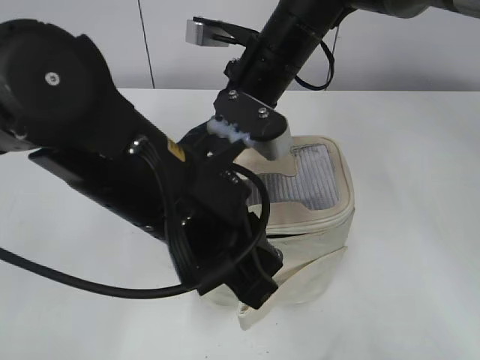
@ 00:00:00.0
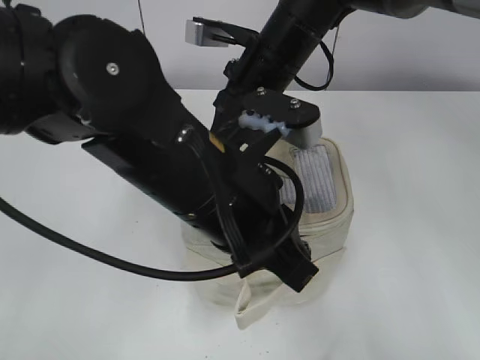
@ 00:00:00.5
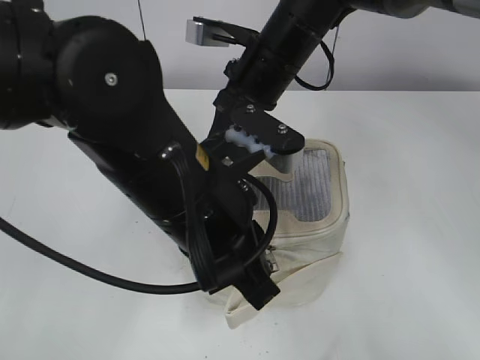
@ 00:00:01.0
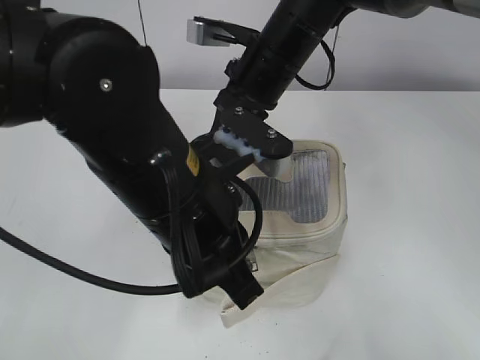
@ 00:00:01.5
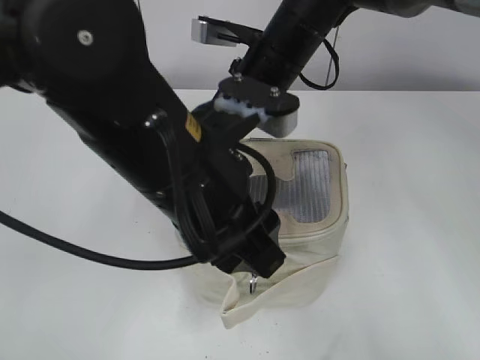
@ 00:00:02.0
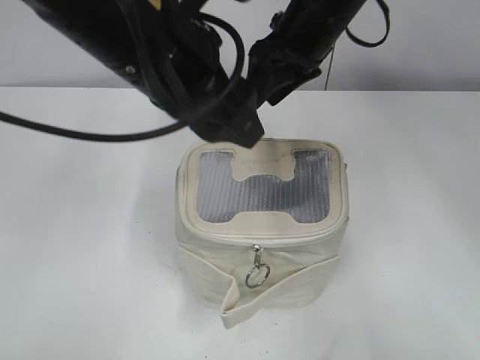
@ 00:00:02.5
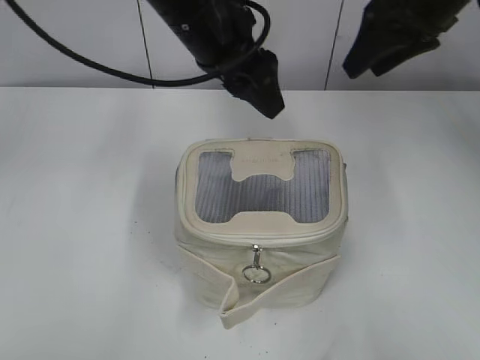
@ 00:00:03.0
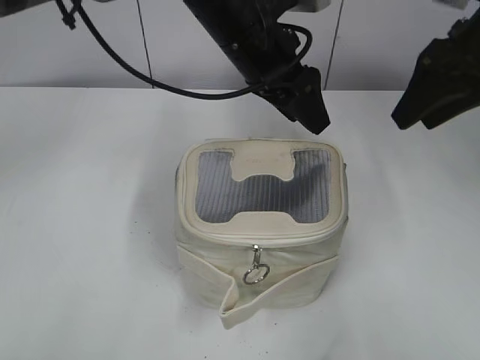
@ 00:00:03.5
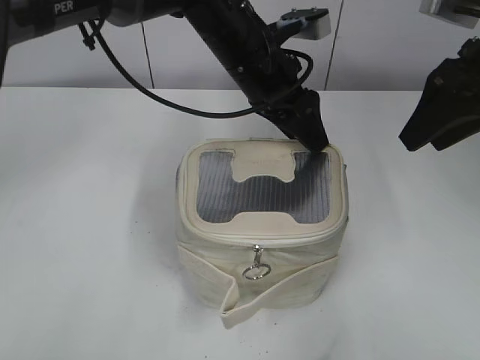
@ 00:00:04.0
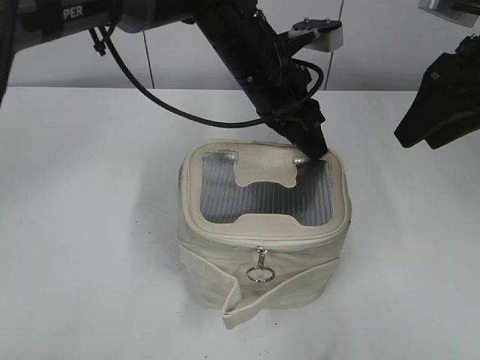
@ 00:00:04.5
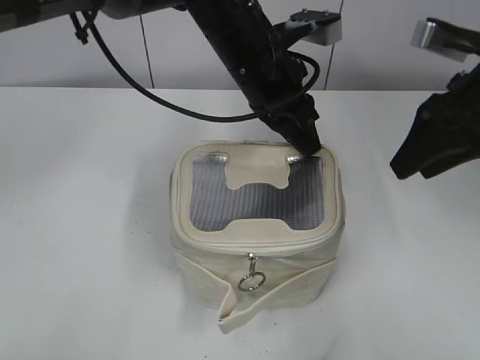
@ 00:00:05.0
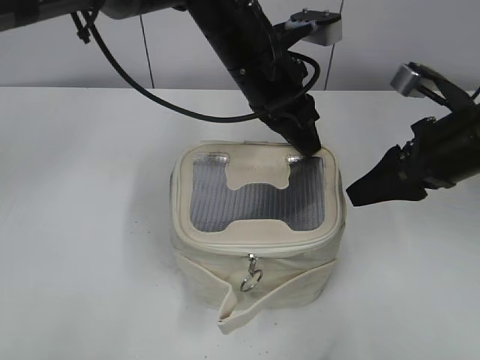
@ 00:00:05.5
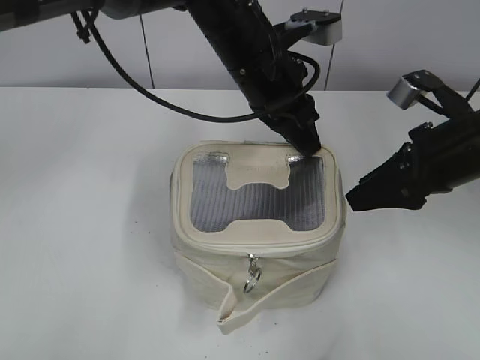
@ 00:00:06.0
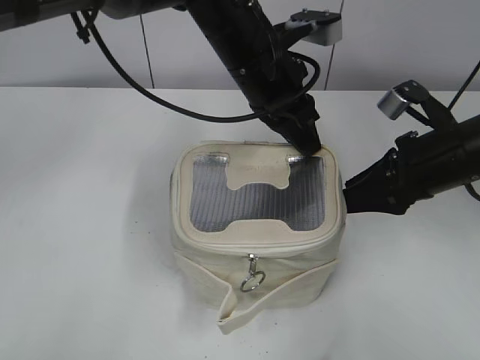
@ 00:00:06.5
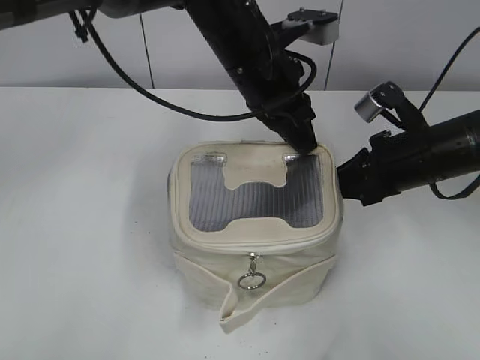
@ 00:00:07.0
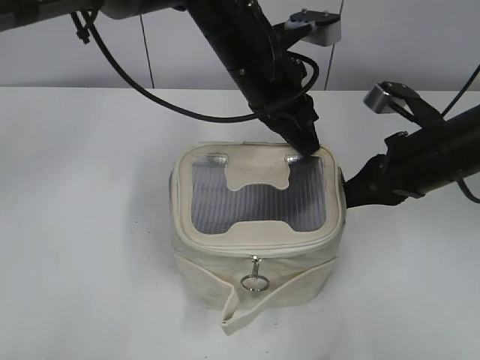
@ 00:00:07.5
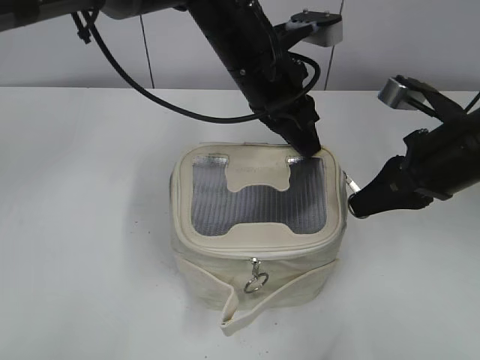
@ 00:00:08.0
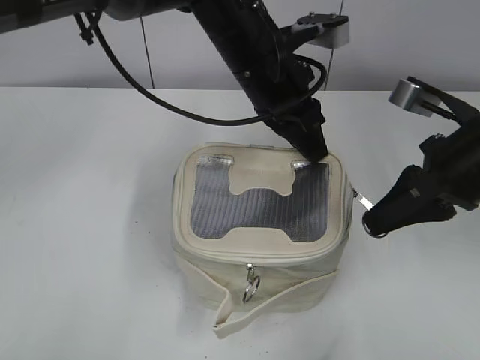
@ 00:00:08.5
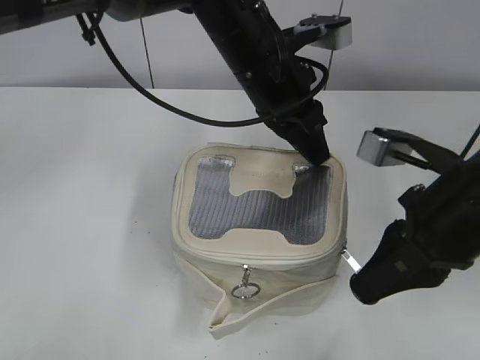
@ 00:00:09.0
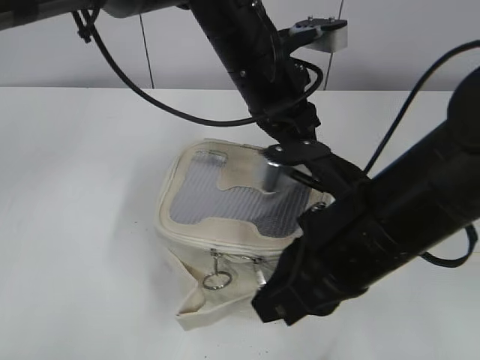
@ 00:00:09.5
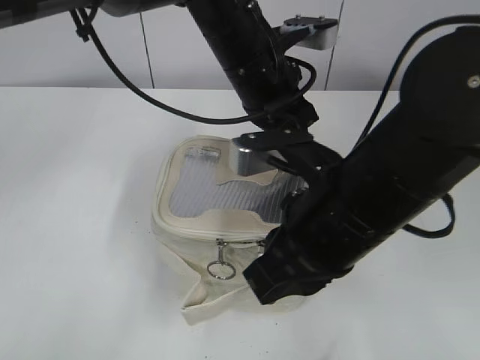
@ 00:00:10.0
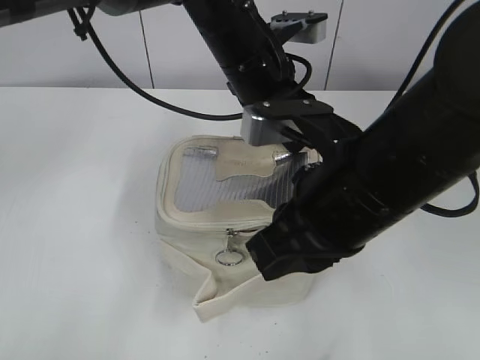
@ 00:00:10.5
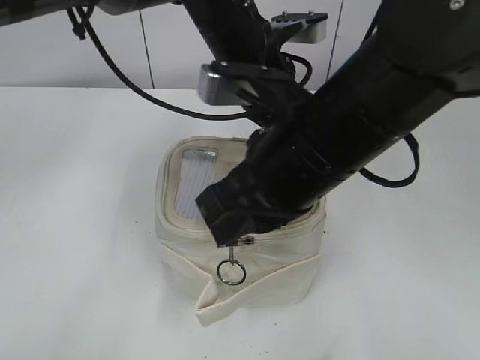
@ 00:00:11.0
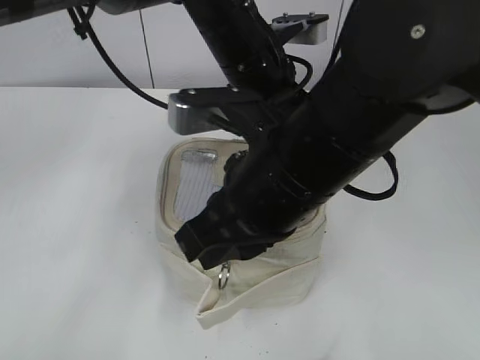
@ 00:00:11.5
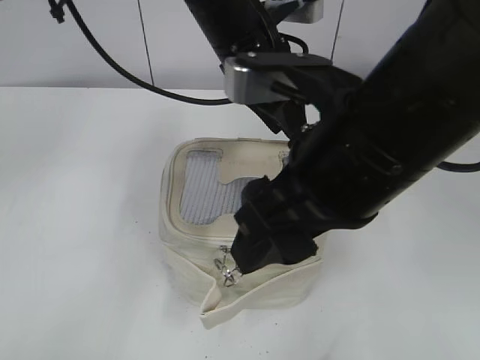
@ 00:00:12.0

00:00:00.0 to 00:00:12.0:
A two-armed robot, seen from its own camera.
Step, 00:00:02.5 to 00:00:11.5: Zip up the bag with your right hand.
00:00:00.0 to 00:00:02.0: The left gripper opens up. The right gripper opens up.
00:00:02.0 to 00:00:04.0: The left gripper is displaced forward by roughly 20 cm, while the right gripper heads to the right, covering about 20 cm.
00:00:04.0 to 00:00:06.0: The left gripper closes; the right gripper moves downward, approximately 10 cm.
00:00:06.0 to 00:00:08.0: The right gripper closes.
00:00:08.0 to 00:00:10.0: The right gripper heads to the left and backward, covering about 15 cm.
00:00:10.0 to 00:00:12.0: The right gripper goes about 5 cm upward, and opens its fingers. The left gripper opens its fingers.

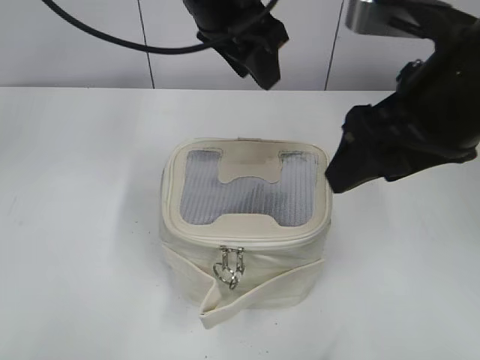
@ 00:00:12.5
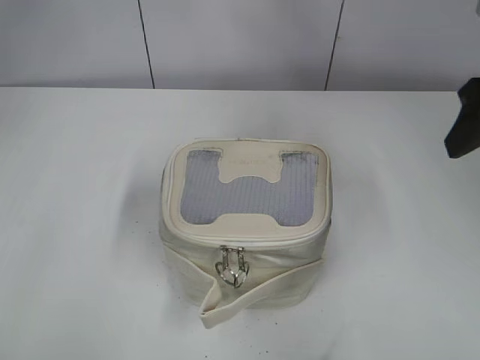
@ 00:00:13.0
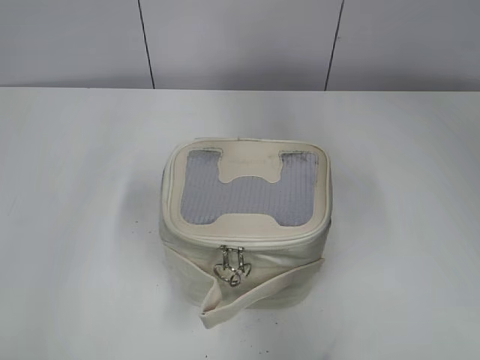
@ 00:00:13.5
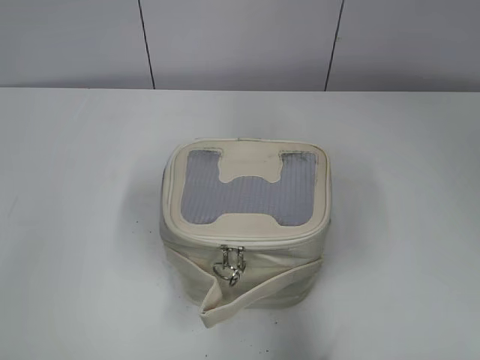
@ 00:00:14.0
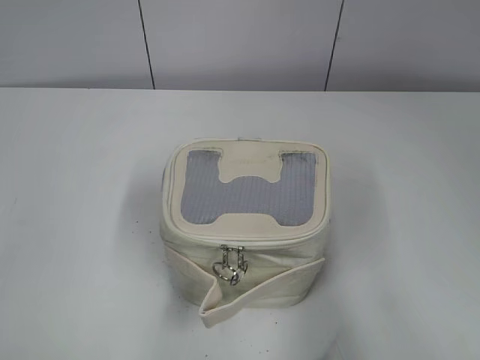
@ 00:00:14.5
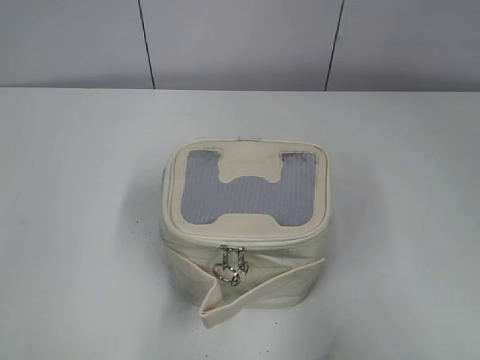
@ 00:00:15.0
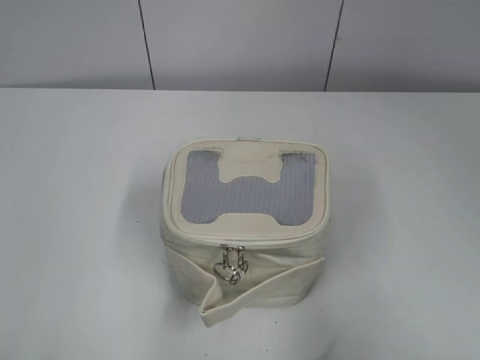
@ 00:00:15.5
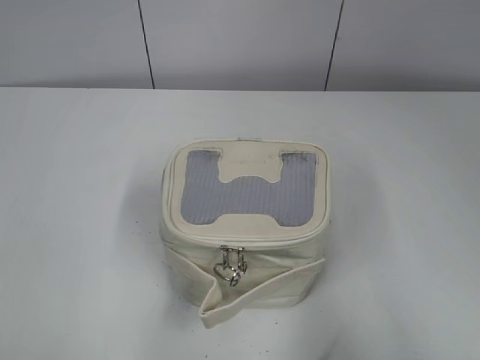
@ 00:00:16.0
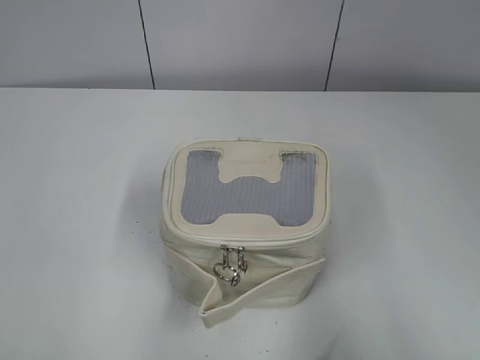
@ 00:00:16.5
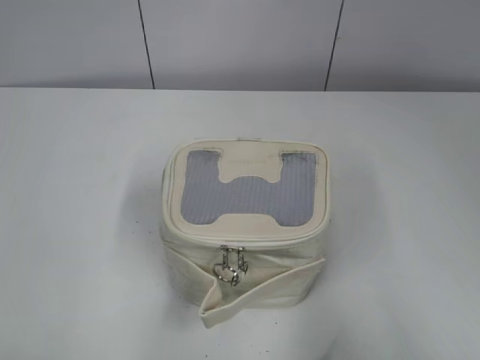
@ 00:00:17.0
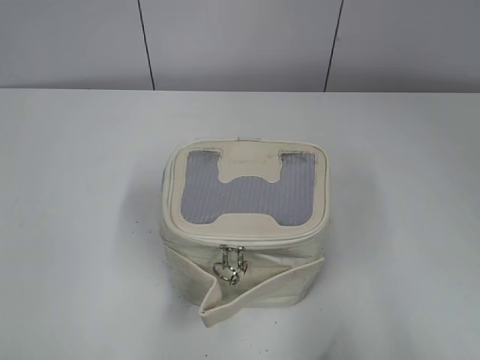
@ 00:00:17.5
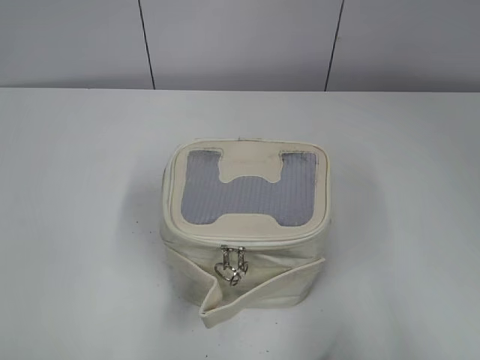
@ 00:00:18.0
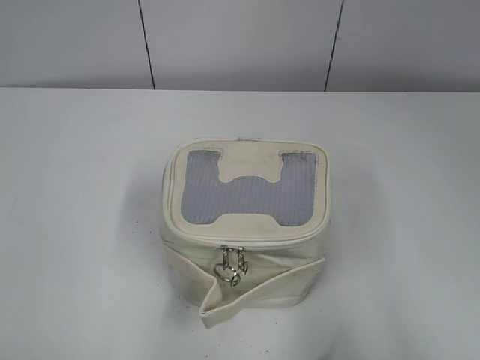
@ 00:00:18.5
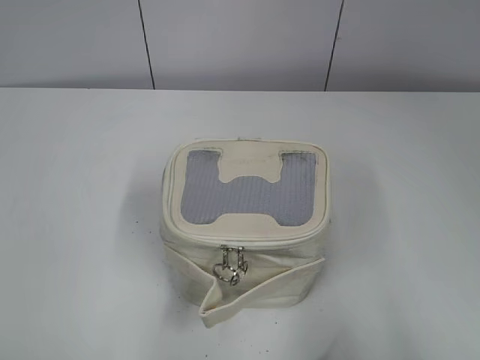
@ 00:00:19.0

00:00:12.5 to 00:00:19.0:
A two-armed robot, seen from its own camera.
00:00:12.5 to 00:00:14.5: The left gripper is displaced backward and to the left by about 40 cm. Meanwhile the right gripper is displaced backward and to the right by some 25 cm.
